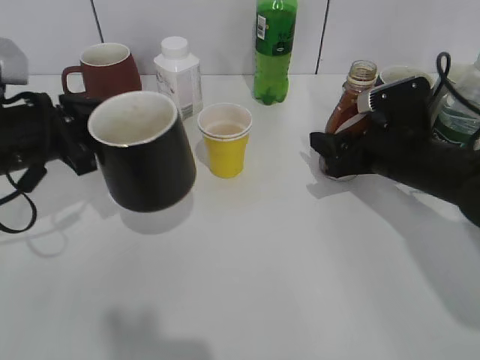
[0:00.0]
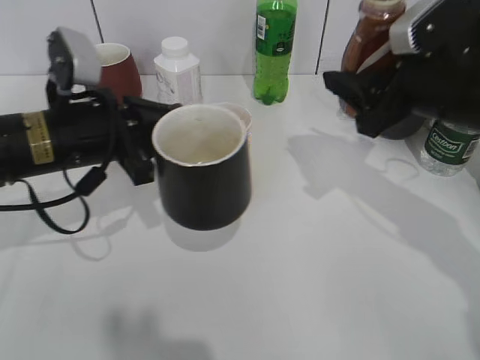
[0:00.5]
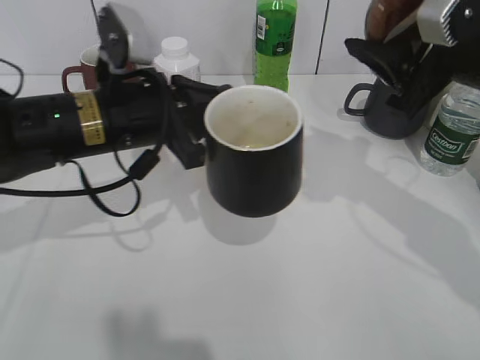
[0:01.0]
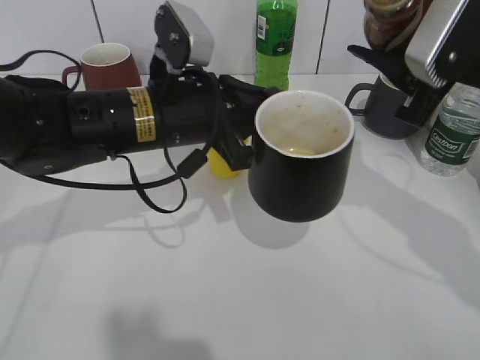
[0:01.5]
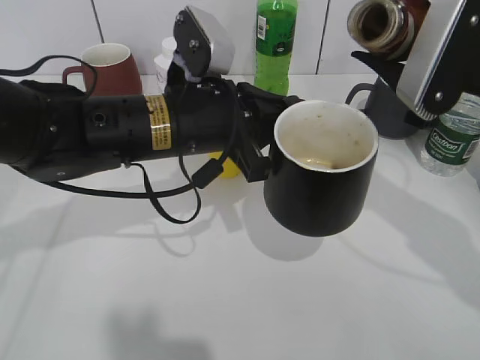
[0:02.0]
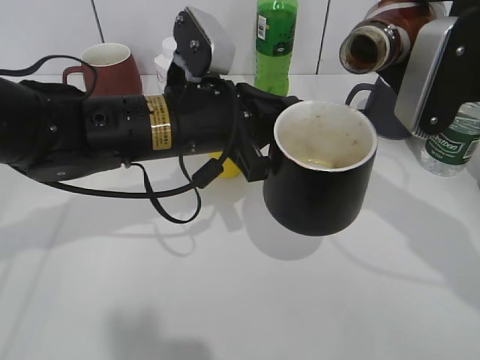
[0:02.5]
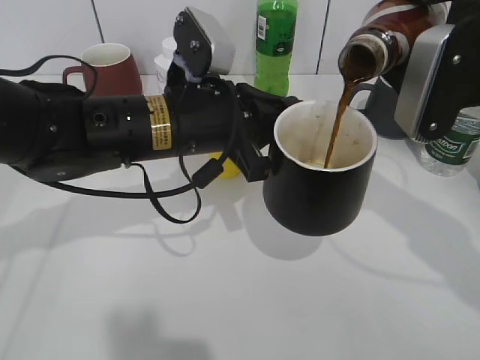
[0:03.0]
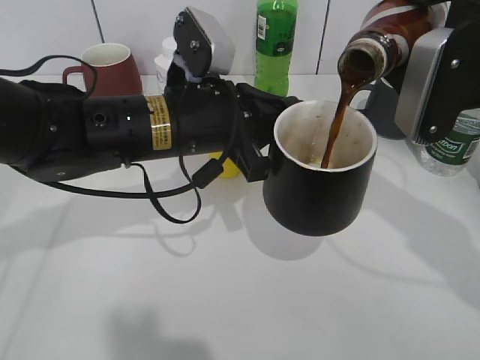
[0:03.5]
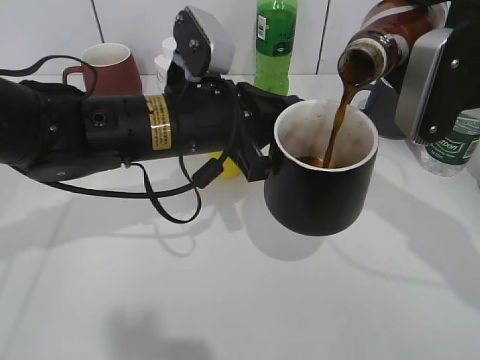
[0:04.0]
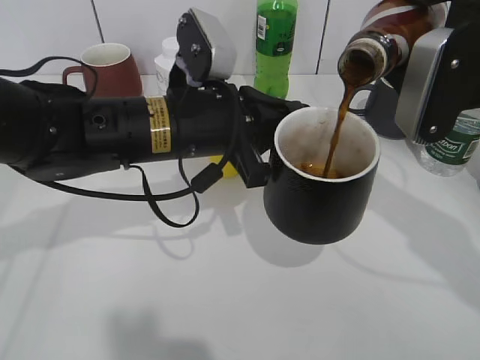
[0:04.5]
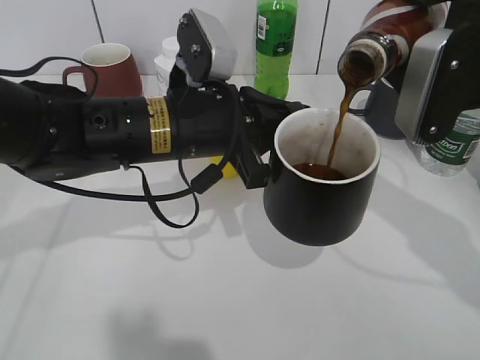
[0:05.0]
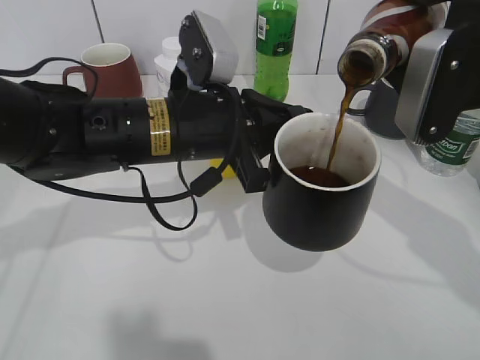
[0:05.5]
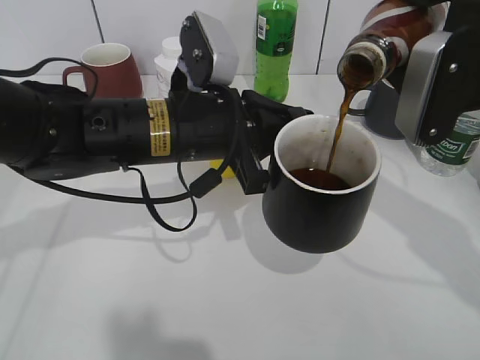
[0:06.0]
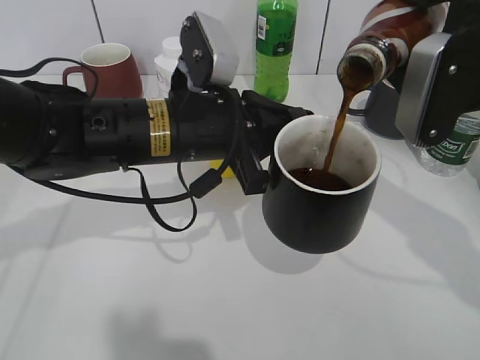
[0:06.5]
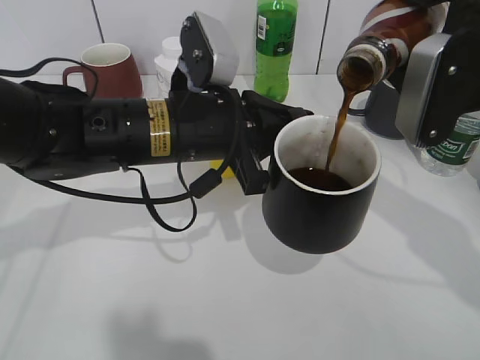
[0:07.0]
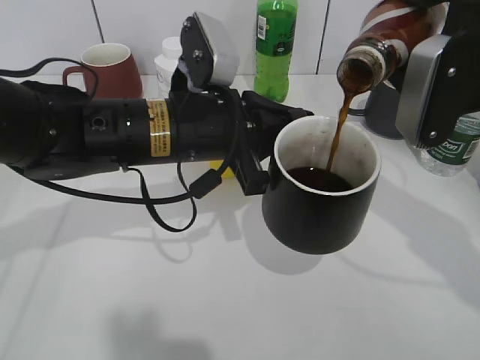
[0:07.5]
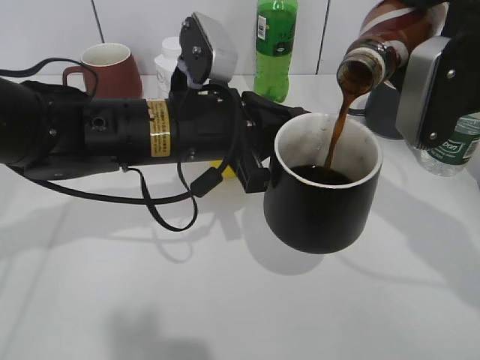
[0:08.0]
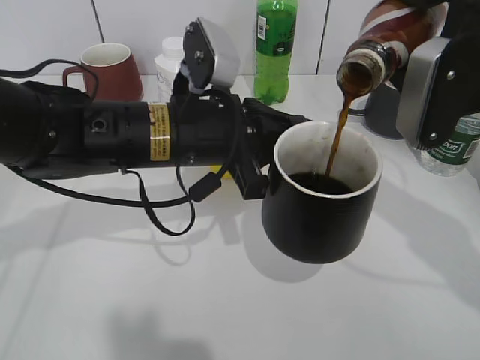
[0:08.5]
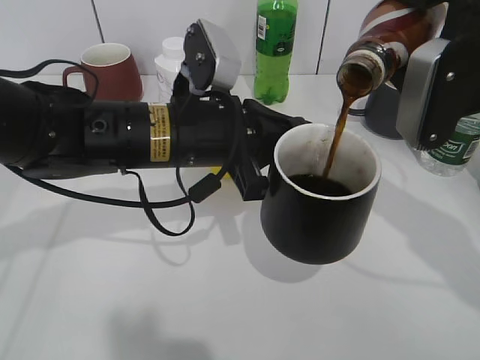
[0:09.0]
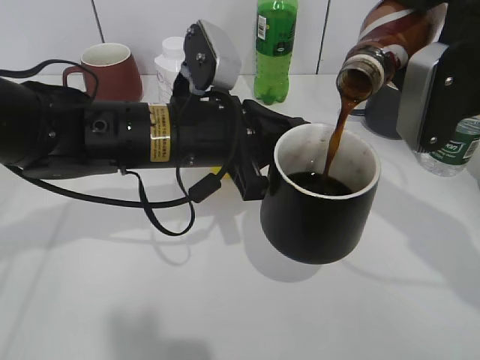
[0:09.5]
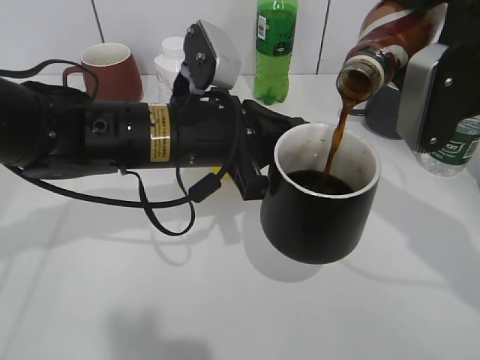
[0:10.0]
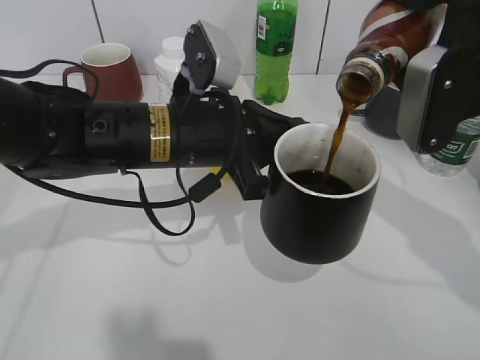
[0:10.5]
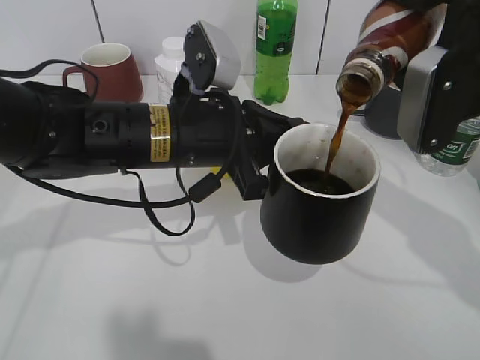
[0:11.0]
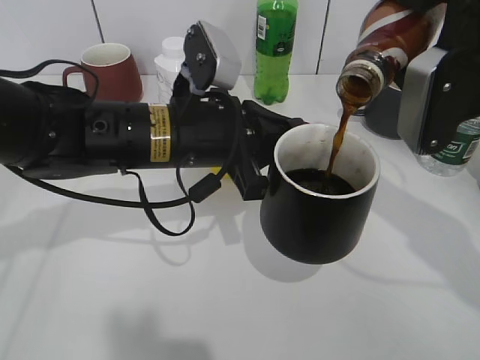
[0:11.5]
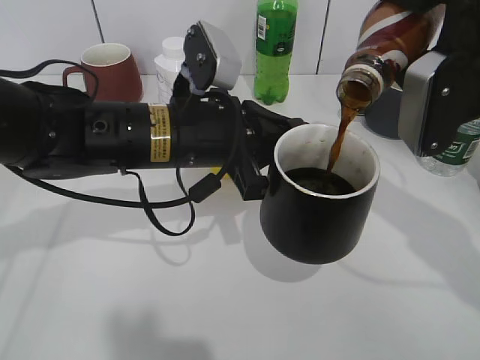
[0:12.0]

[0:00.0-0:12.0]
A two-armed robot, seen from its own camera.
0:00.0 to 0:02.0: The left gripper goes roughly 15 cm to the right, while the right gripper shifts approximately 15 cm upward and backward.
0:02.0 to 0:04.0: There are only small adjustments of the grippers.
0:04.0 to 0:06.0: Both grippers stay about where they are.
0:06.0 to 0:08.0: The two grippers keep their place.
0:08.0 to 0:10.0: The two grippers keep their place.
0:10.0 to 0:12.0: Both grippers stay about where they are.

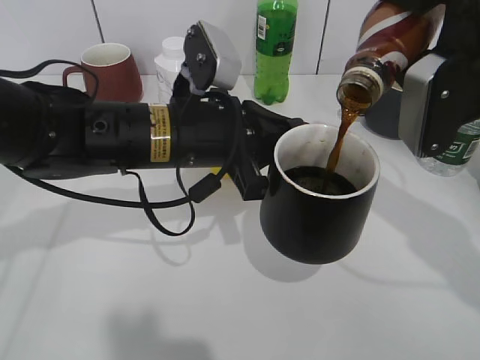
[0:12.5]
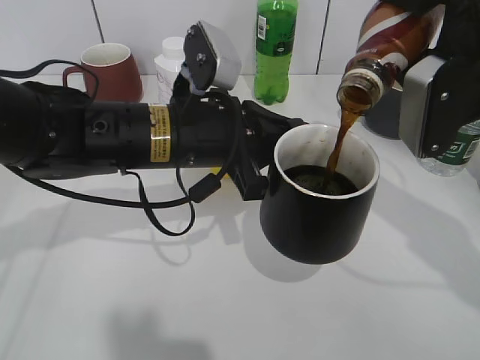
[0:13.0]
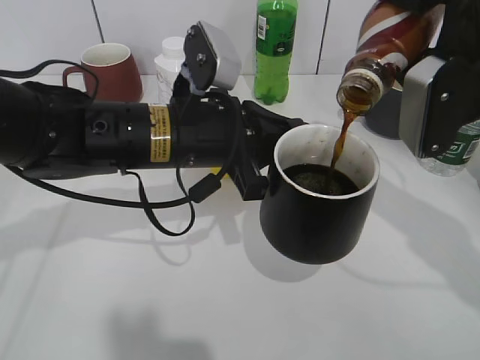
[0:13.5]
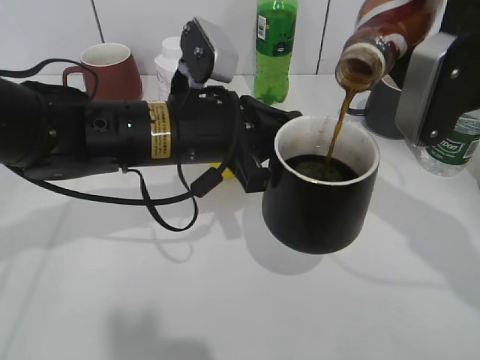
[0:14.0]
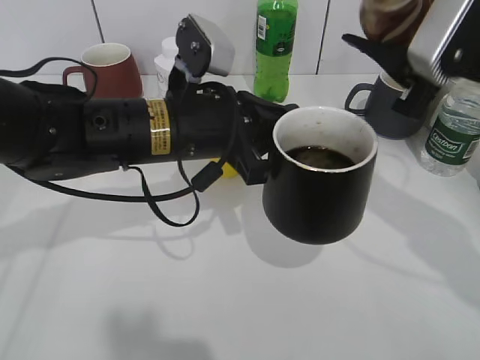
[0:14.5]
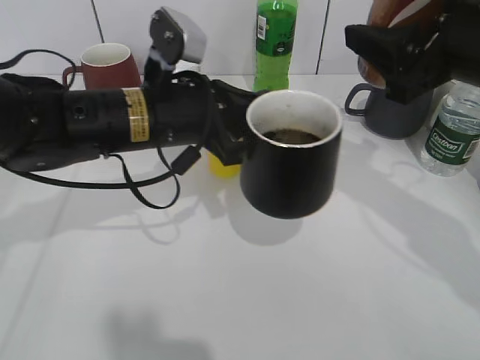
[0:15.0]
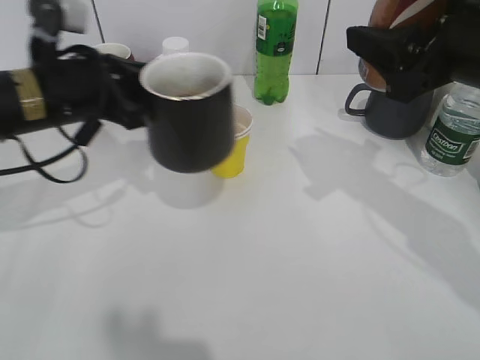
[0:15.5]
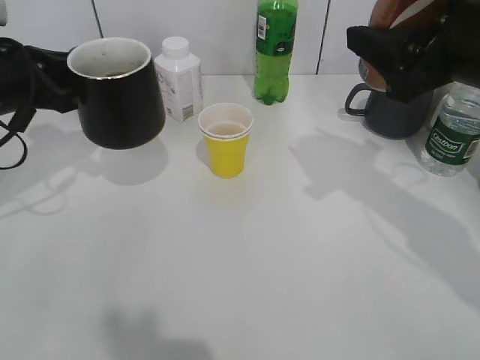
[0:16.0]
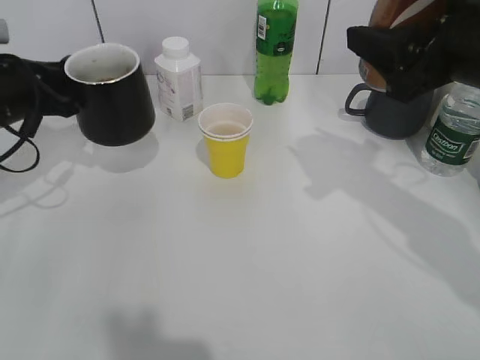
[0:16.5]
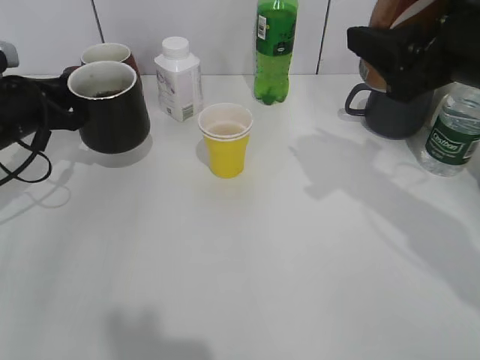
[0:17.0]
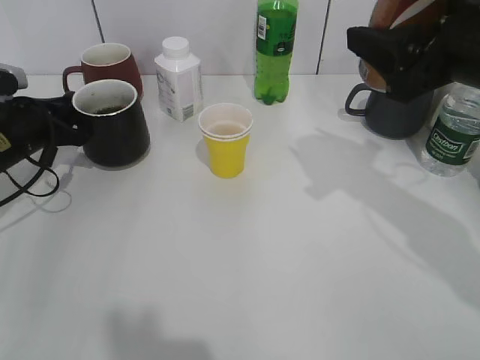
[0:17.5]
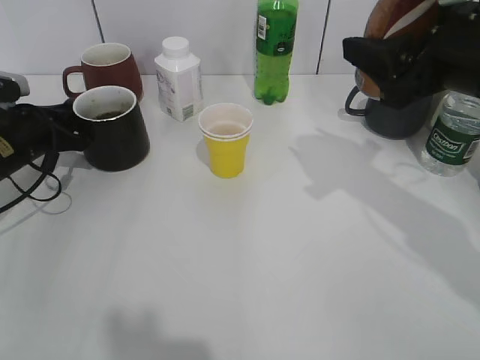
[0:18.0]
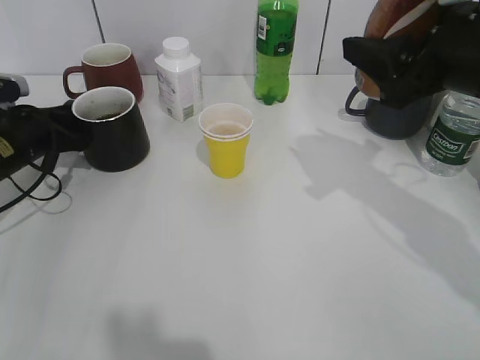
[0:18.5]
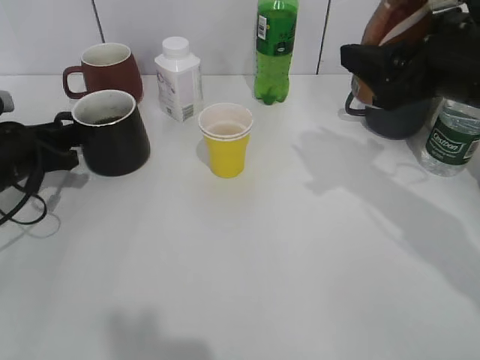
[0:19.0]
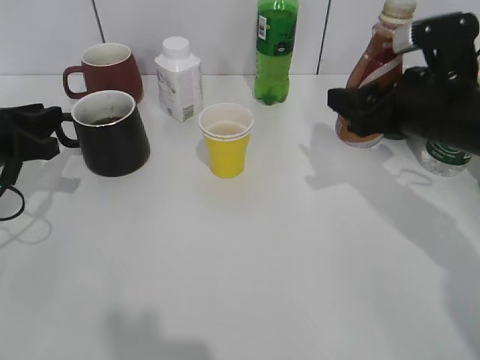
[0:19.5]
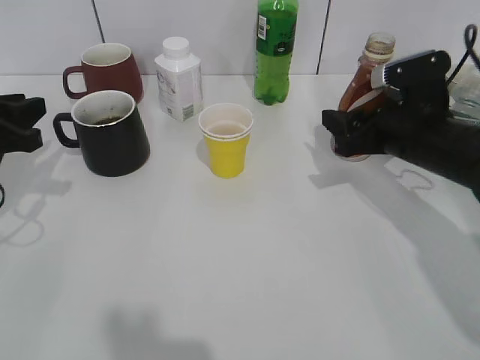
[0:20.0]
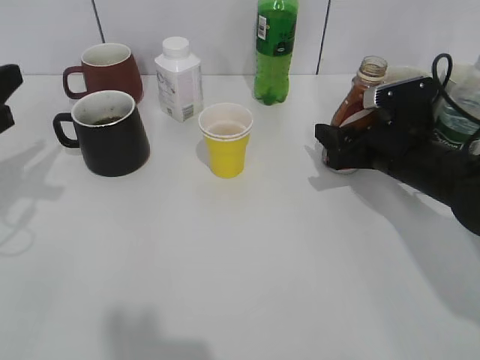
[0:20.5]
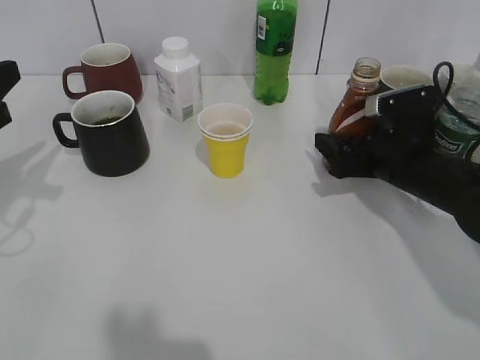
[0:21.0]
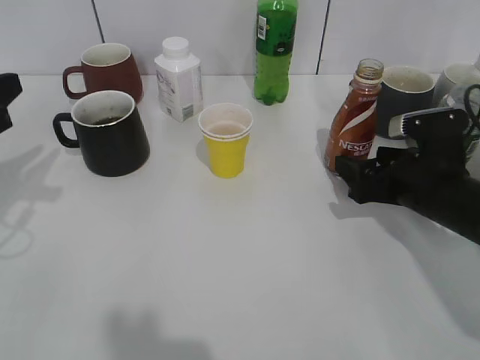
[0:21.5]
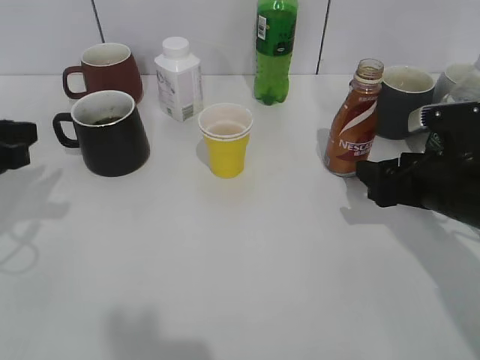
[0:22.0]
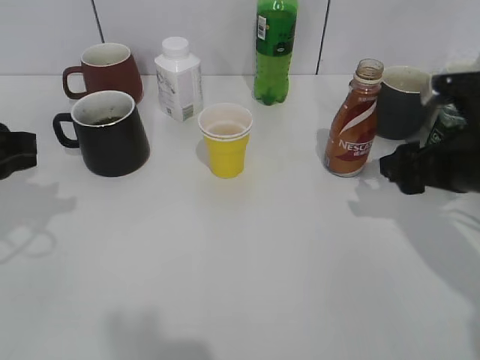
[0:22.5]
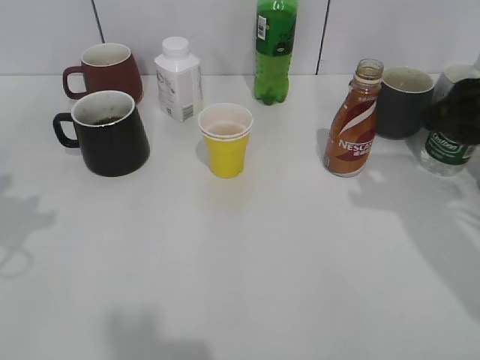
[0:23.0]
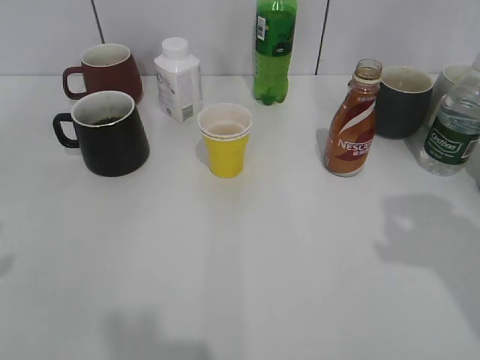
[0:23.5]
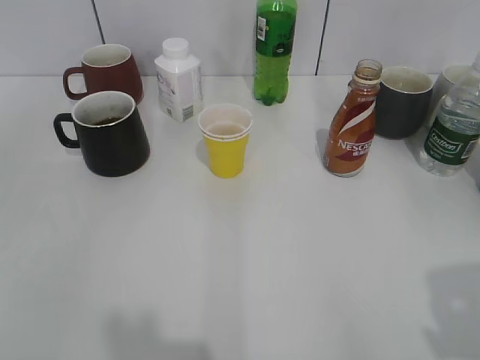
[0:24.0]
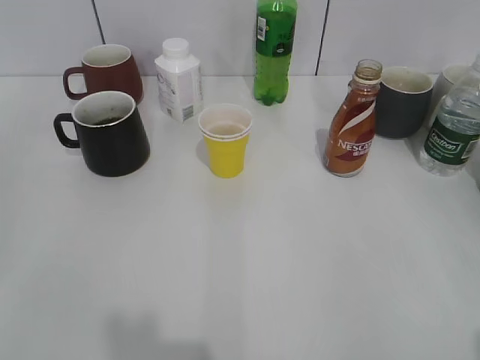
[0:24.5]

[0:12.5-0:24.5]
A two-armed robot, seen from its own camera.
Step, 0:14.5 to 0:19.0: Place the black cup on the table with left gripper.
Step, 0:19.5 to 0:21.5: Place the coffee bottle on the table with right gripper.
0:14.5 to 0:16.5: The left gripper travels to the left by some 20 cm.
0:16.5 to 0:18.5: The left gripper moves downward, about 10 cm.
0:18.5 to 0:20.5: The right gripper moves downward and forward, approximately 15 cm. Meanwhile the left gripper heads backward and upward, covering about 15 cm.
0:20.5 to 0:22.5: The right gripper is displaced backward and upward by approximately 10 cm, and opens.
0:22.5 to 0:24.5: The left gripper goes some 20 cm backward. Meanwhile the right gripper is displaced backward and upward by some 30 cm.

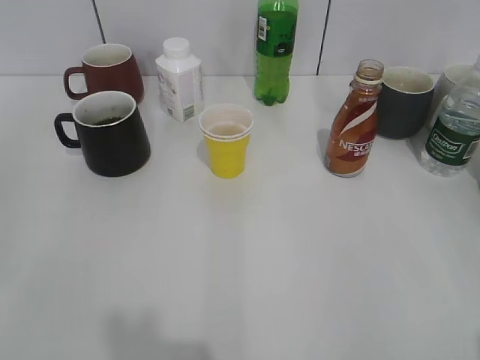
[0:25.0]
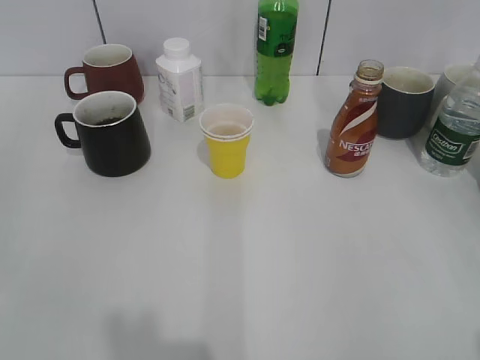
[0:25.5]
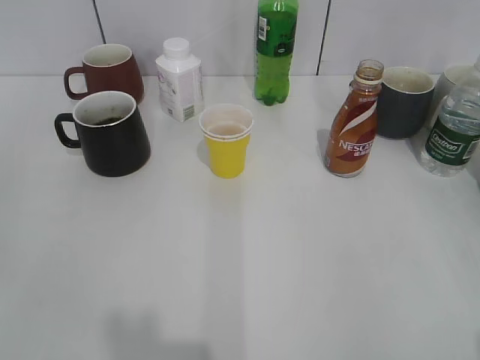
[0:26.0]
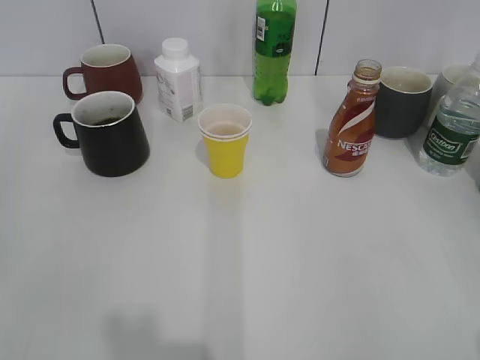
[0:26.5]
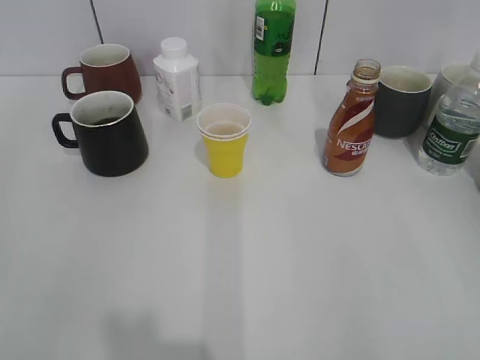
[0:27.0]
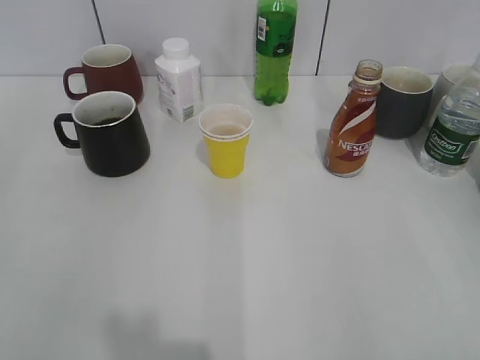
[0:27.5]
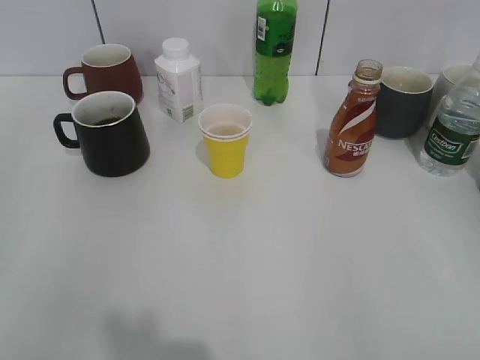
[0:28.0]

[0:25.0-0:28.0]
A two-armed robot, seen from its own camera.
0:25.0 to 0:26.5: The two grippers keep their place.
